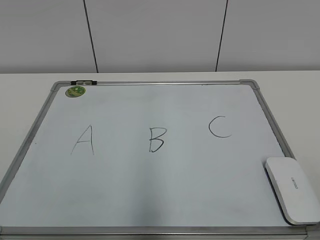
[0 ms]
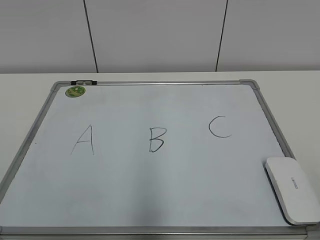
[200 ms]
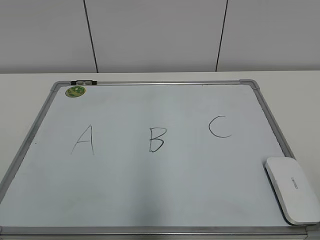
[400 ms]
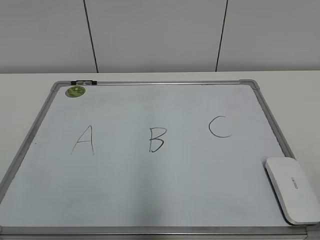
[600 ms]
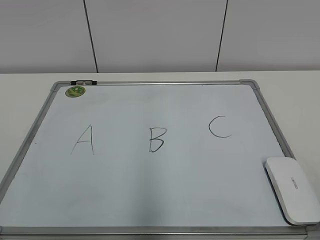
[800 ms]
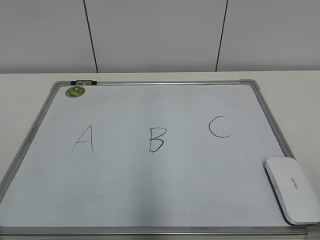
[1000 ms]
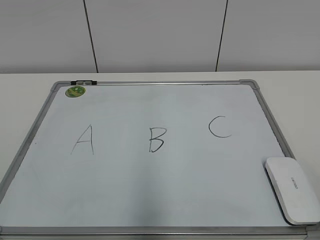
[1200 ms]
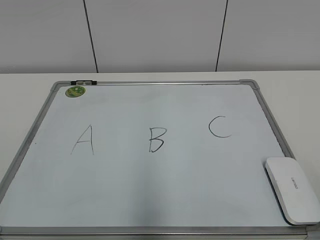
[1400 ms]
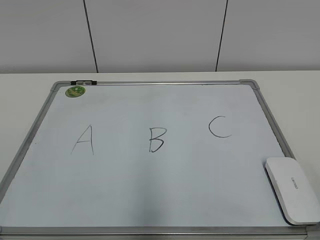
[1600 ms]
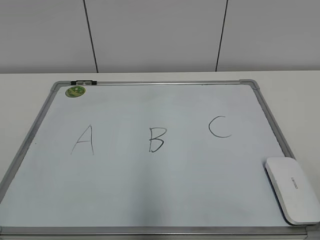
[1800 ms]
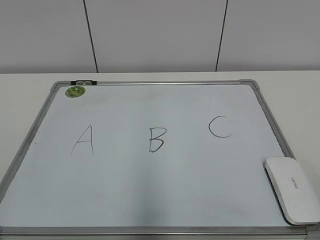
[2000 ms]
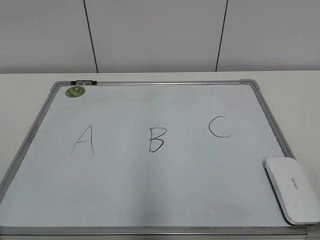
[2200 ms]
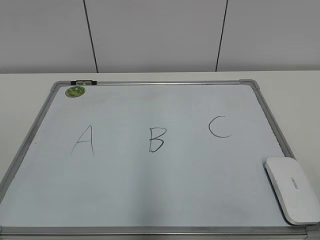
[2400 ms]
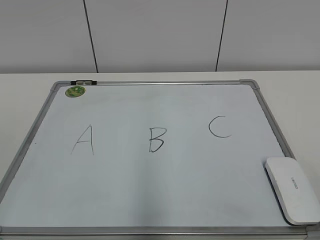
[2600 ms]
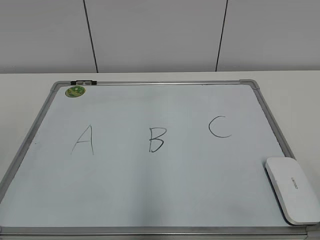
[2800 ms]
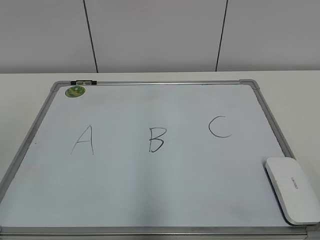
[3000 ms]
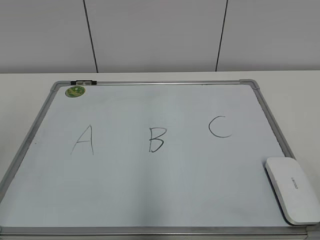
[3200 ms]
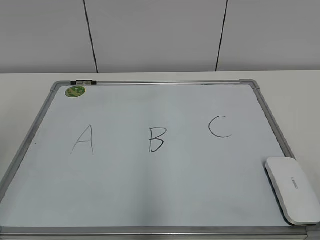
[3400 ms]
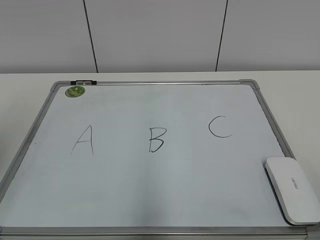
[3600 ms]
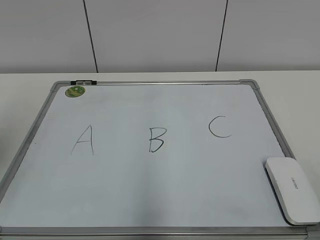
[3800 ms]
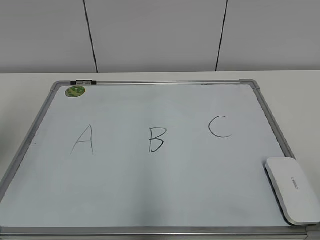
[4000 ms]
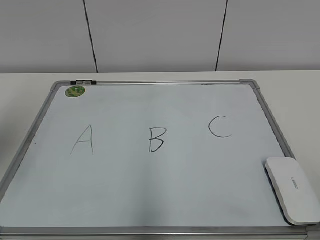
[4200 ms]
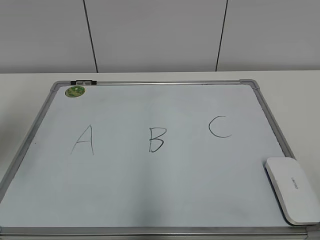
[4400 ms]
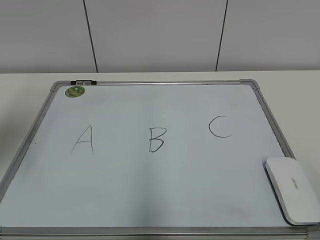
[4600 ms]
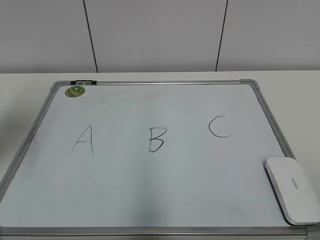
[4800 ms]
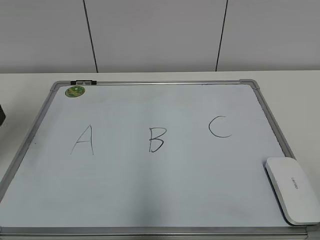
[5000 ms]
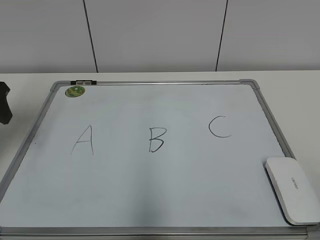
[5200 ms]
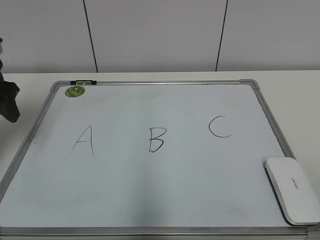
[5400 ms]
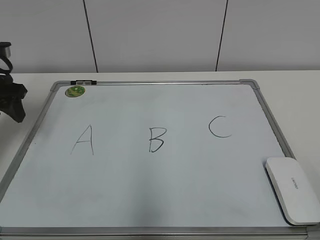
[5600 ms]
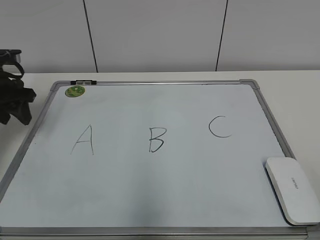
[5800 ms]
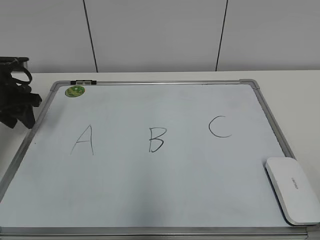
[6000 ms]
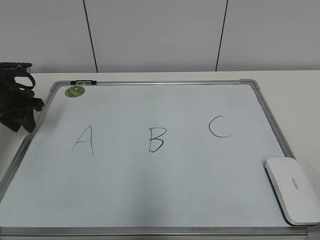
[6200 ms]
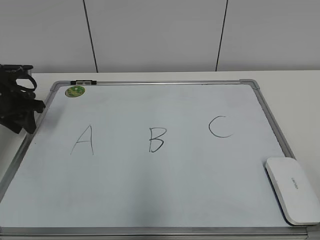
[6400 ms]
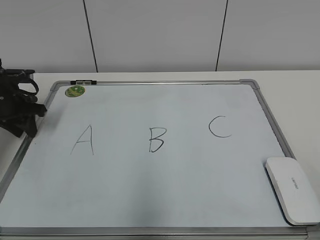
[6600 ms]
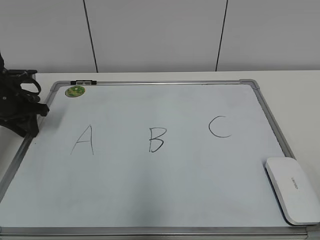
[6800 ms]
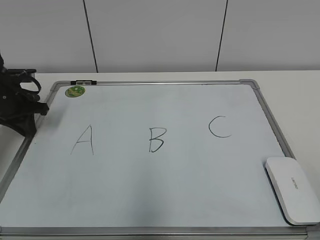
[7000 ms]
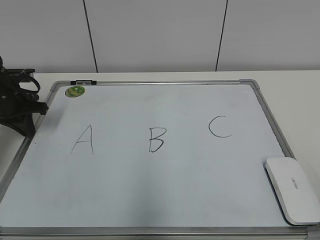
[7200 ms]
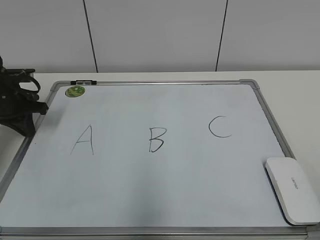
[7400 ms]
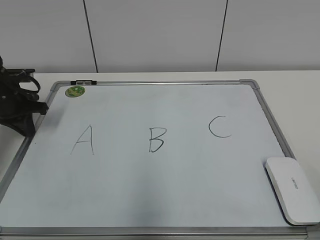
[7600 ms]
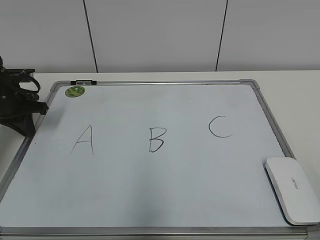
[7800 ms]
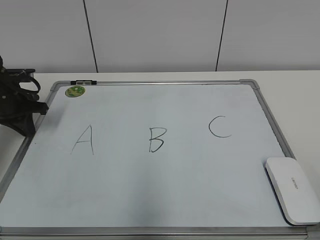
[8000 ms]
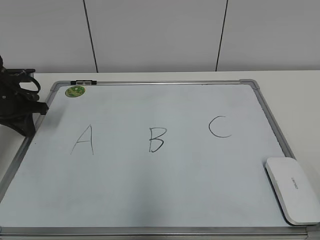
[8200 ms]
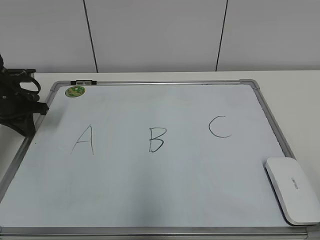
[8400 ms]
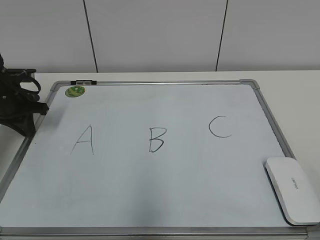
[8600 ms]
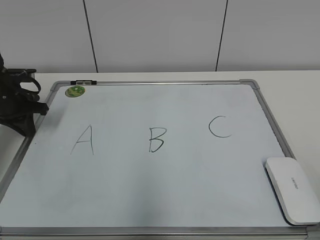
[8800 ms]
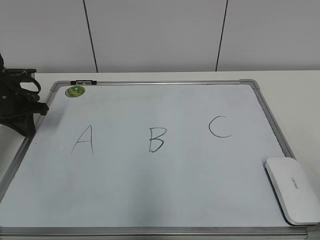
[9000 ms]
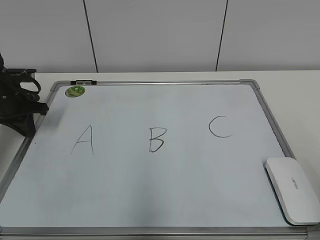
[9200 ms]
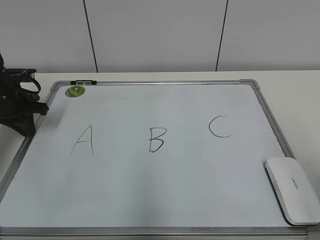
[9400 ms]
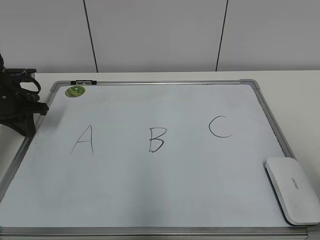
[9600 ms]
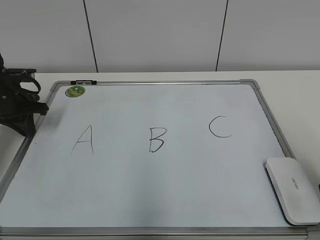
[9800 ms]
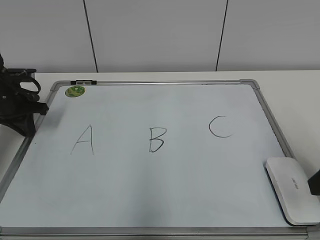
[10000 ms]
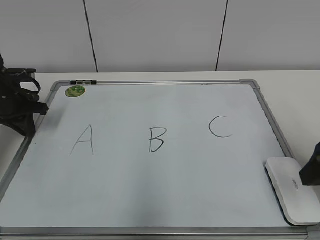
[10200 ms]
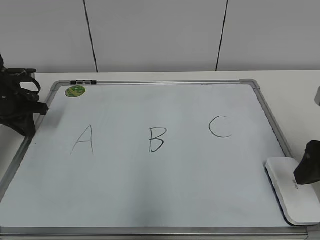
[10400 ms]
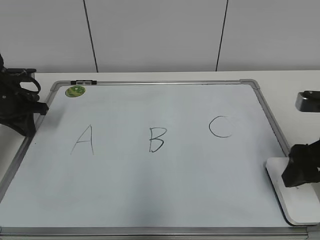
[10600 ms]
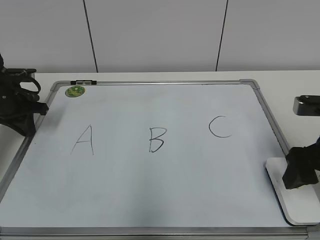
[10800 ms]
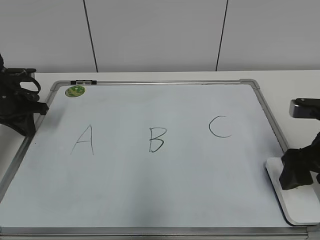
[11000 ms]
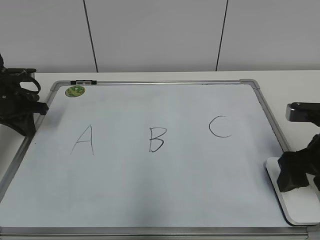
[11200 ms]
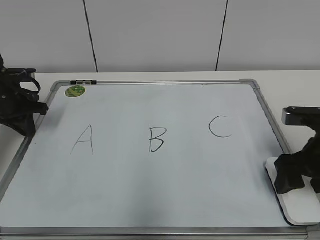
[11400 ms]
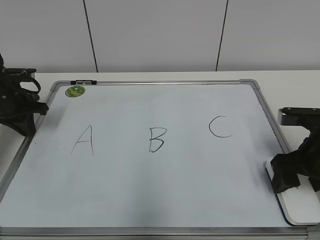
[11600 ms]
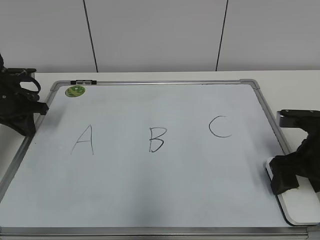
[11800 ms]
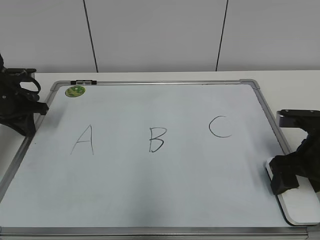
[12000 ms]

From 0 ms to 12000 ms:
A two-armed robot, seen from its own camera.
Task of the whole recording: pick up the eraser on the blackboard and erase the letter "B".
Step, from 0 ms to 7000 ms: Hold the drawing board steady with your left hand.
From 3000 ms to 4400 ms: The left gripper goes roughly 15 cm forward.
From 4400 ms to 6000 ms: The left gripper travels forward and downward by about 20 cm, and closes its fingers.
From 6000 ms to 7600 ms: The left gripper closes its fingers.
From 9000 ms to 10400 ms: The right gripper goes some 25 cm forward and downward.
From 10400 ms to 12000 ms: The right gripper goes about 5 cm downward.

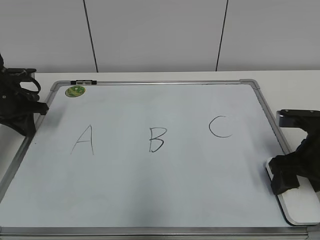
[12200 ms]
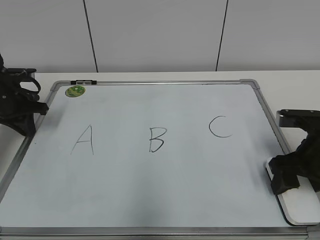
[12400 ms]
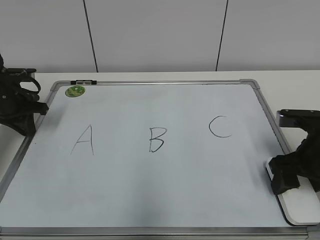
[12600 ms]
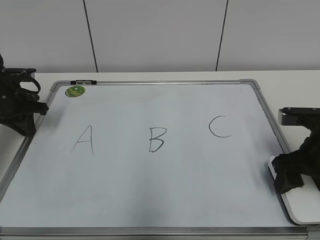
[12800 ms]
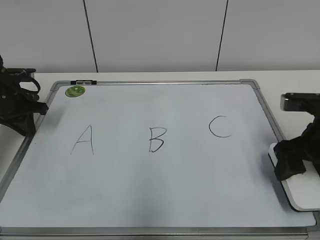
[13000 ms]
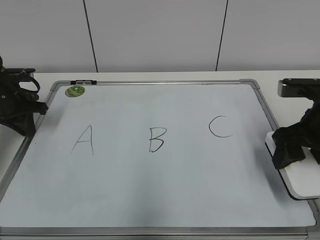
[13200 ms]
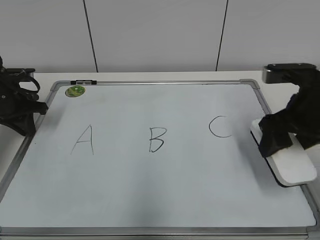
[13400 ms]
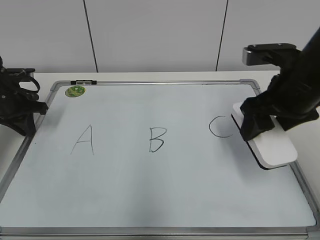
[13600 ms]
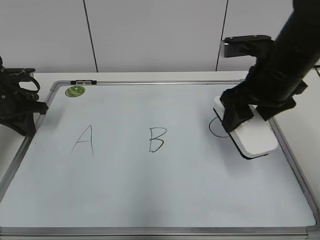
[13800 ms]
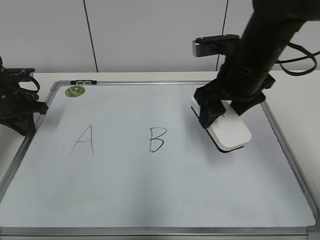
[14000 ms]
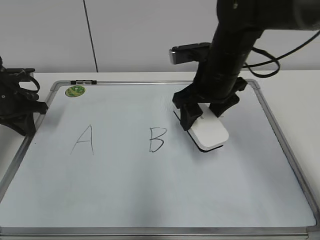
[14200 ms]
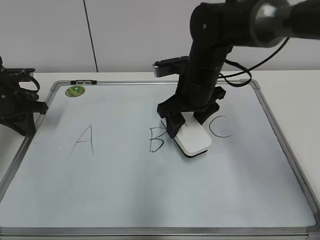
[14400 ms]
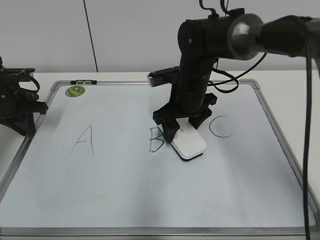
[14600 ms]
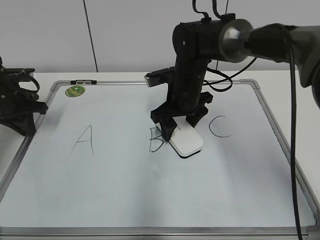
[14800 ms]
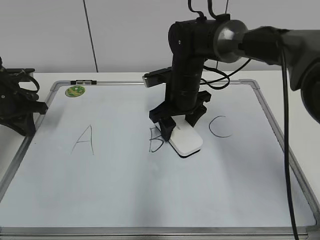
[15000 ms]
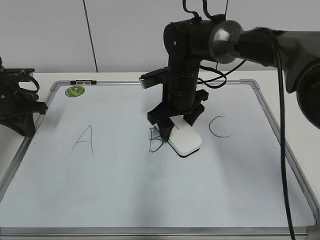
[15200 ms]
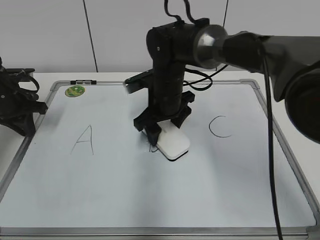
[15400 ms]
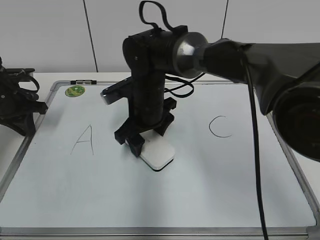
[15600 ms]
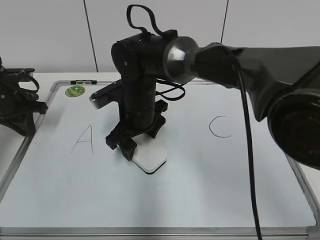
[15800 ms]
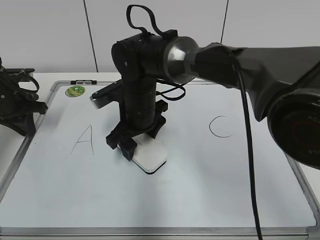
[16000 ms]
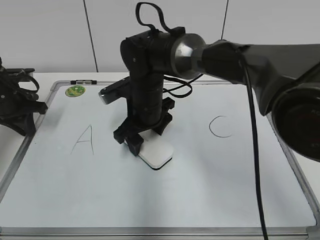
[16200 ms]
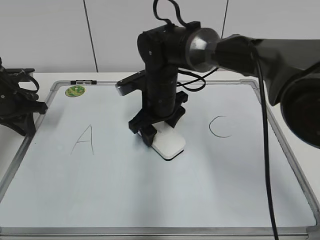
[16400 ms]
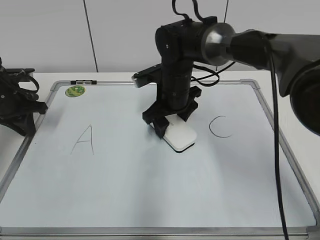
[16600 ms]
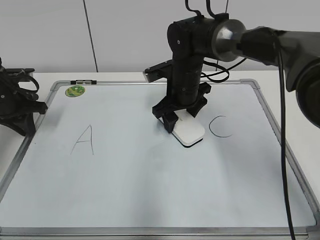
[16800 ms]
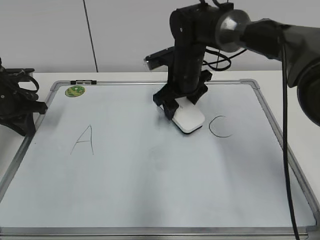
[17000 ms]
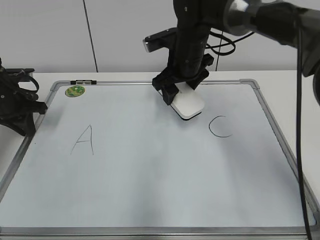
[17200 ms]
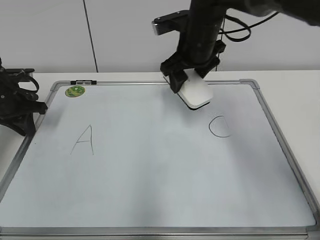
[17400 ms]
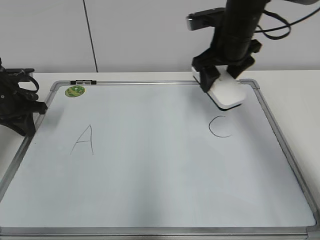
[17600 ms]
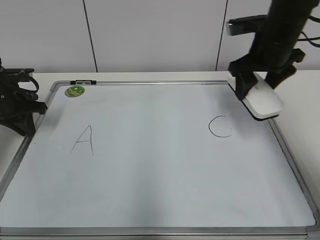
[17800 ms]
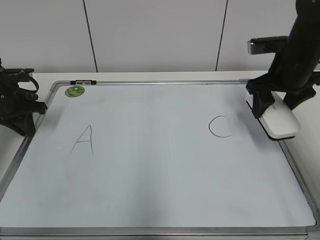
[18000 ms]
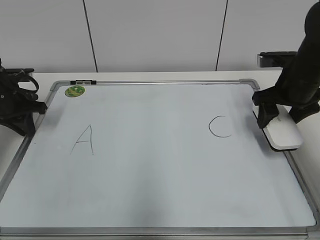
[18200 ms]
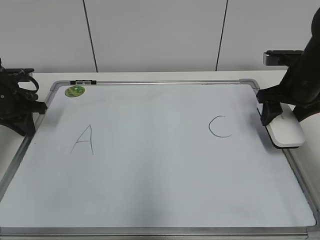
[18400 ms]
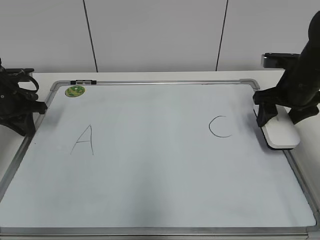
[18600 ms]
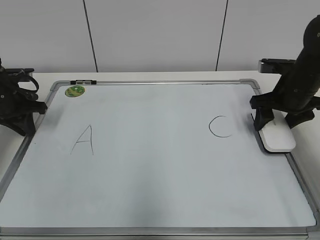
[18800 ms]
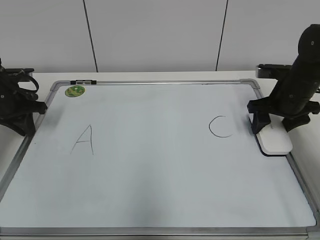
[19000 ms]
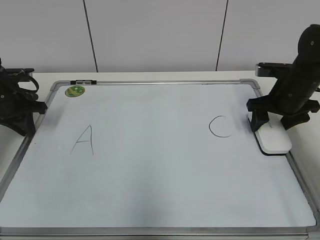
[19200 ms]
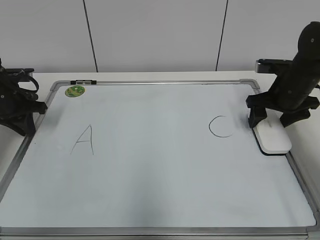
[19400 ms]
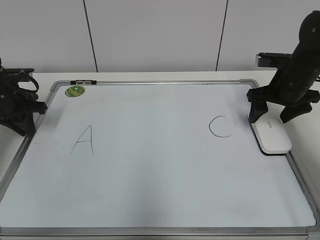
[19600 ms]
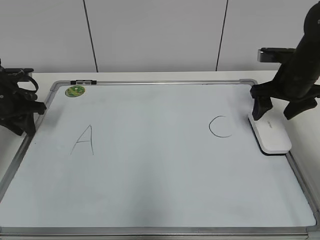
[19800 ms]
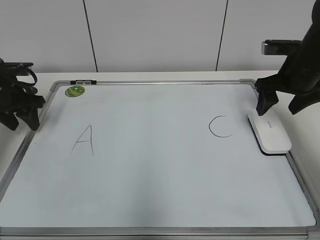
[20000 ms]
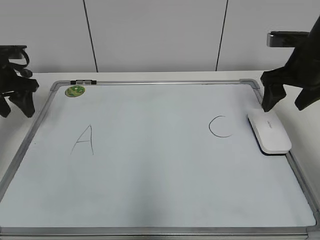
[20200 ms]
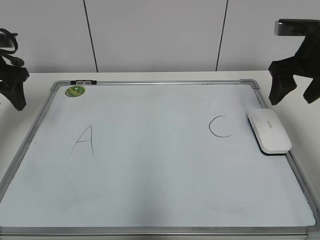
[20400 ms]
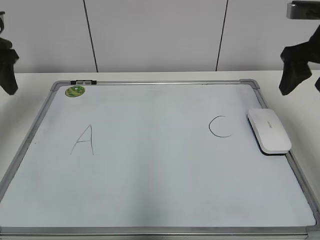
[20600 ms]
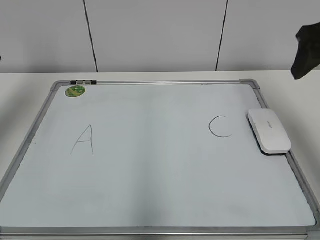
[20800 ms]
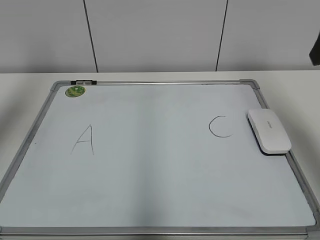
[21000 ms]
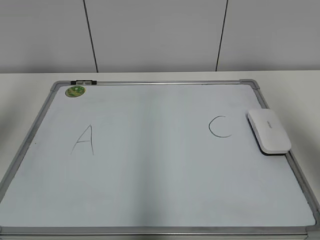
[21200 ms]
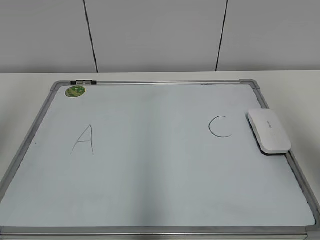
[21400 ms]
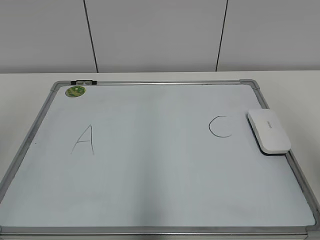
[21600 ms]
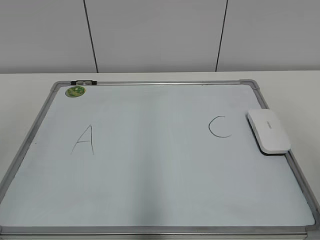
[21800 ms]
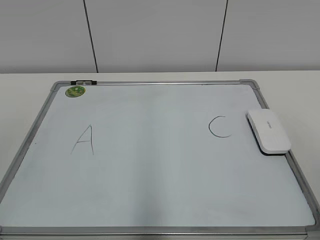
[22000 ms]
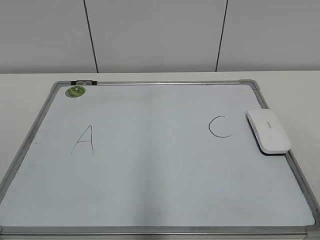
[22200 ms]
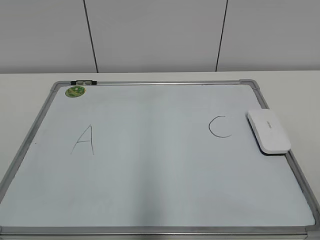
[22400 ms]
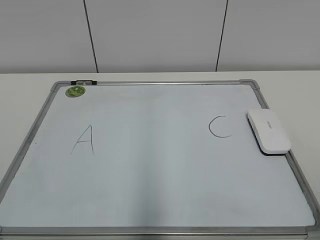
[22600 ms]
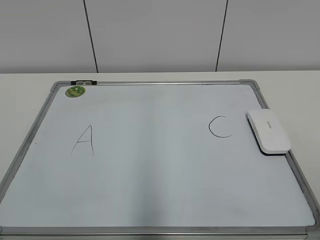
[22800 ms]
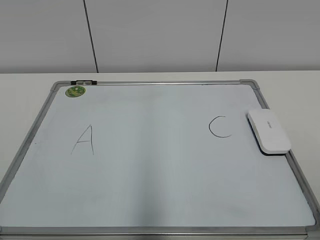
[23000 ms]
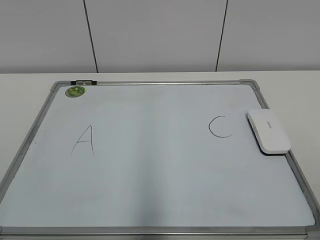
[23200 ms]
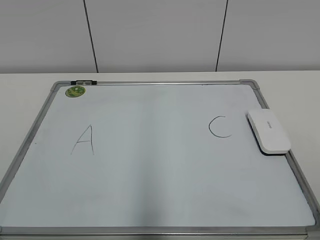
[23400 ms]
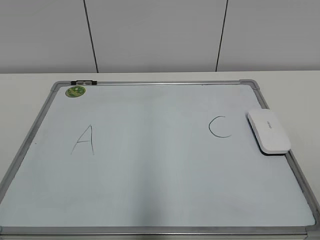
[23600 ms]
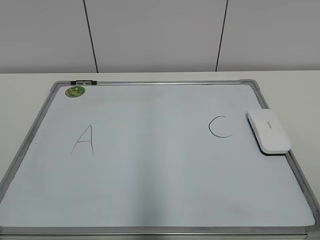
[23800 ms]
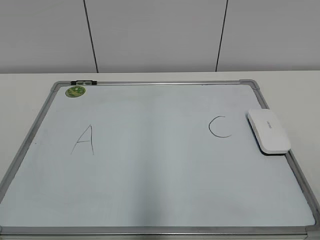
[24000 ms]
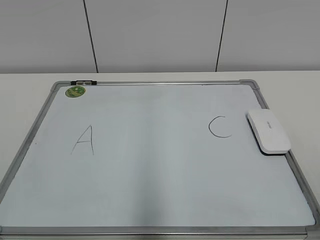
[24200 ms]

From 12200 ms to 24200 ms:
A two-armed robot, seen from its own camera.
Task of the whole recording: pick up the eraser on the blackboard and erase the letter "B".
Step, from 12800 ms to 16600 ms: Erase the letter B with your right hand.
Step, from 17000 ms to 19400 ms: Put down the eraser with your right hand.
From 12200 ms to 13800 ms: The right gripper travels upward and to the left by approximately 15 cm.
From 13800 ms to 15200 ms: The right gripper heads to the left, forward and downward, covering about 20 cm.
From 15200 ms to 16600 ms: The right gripper moves approximately 10 cm to the left and comes back.
From 16600 ms to 18200 ms: The right gripper heads to the right, covering some 20 cm.
From 18200 ms to 19800 ms: The right gripper opens.
From 19800 ms to 21200 ms: Both grippers travel together upward and backward, about 30 cm. The right gripper closes; the left gripper opens up.
From 21200 ms to 22600 ms: The grippers both shift backward and downward by approximately 25 cm.
